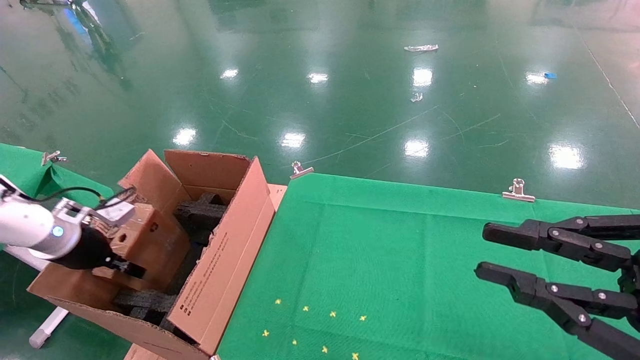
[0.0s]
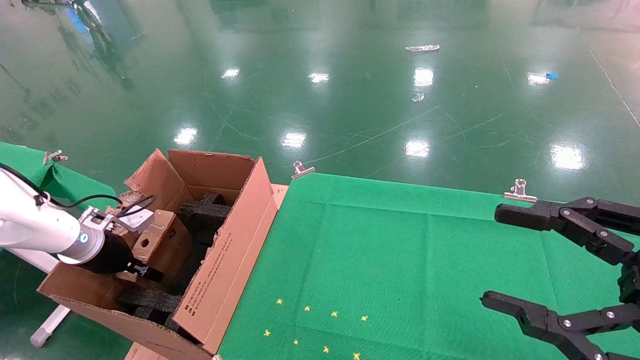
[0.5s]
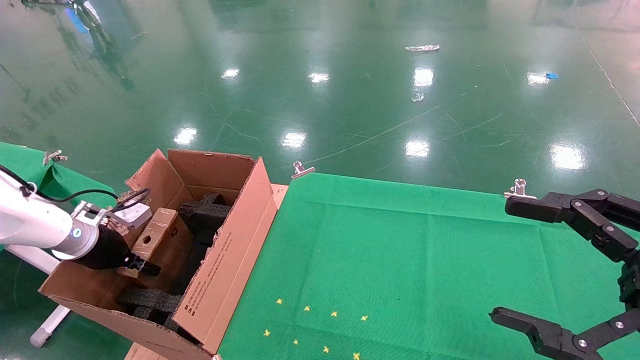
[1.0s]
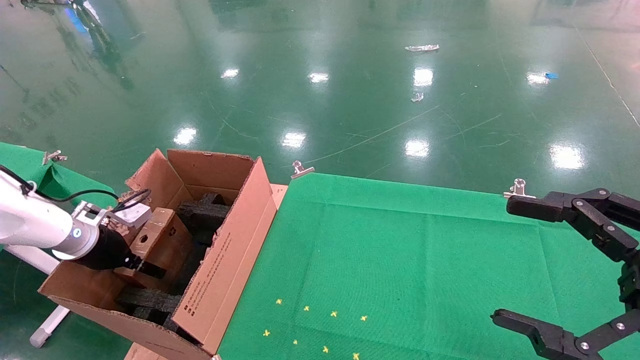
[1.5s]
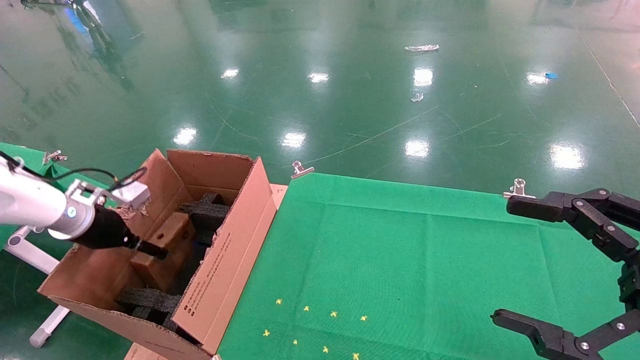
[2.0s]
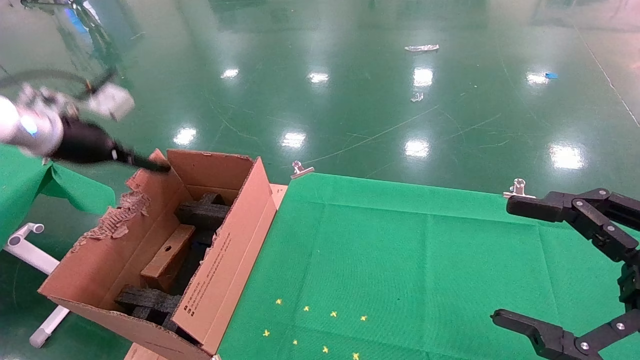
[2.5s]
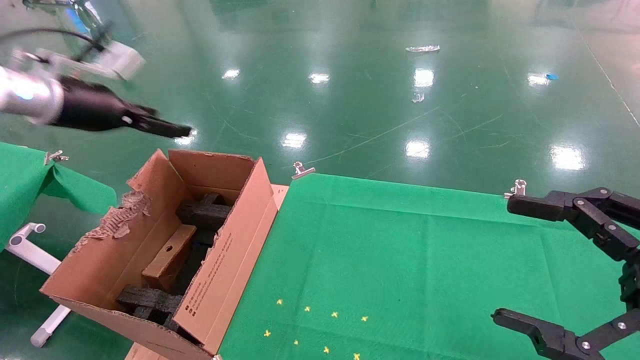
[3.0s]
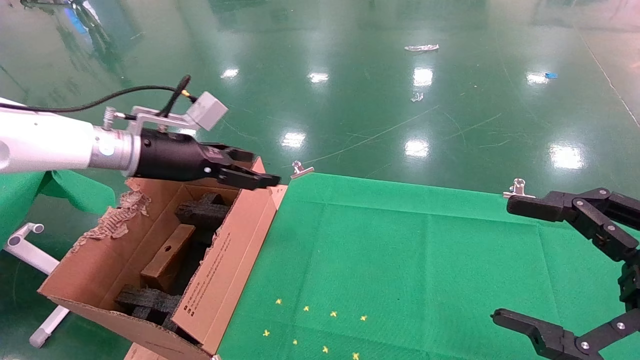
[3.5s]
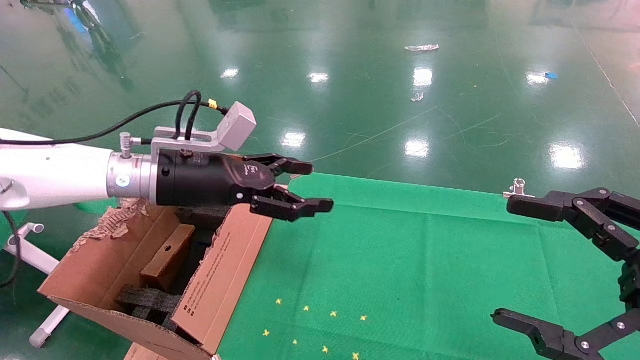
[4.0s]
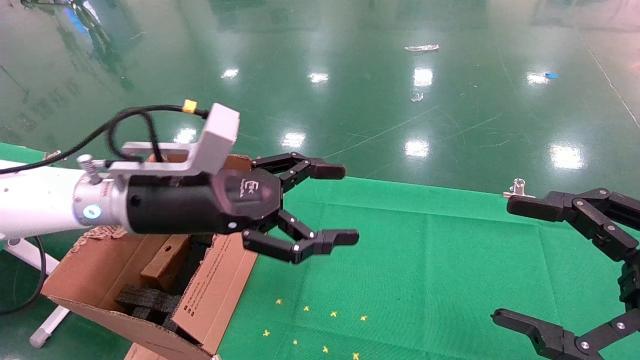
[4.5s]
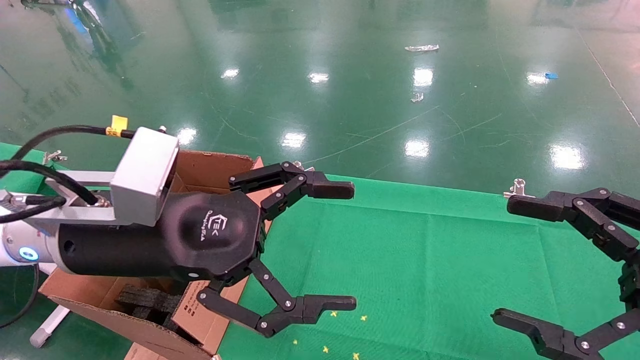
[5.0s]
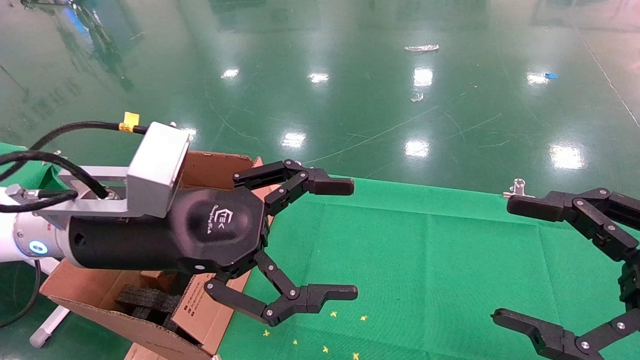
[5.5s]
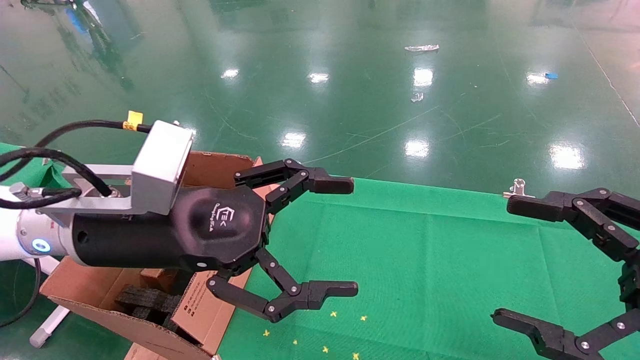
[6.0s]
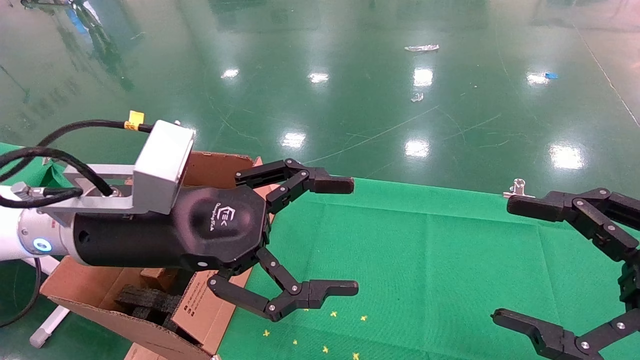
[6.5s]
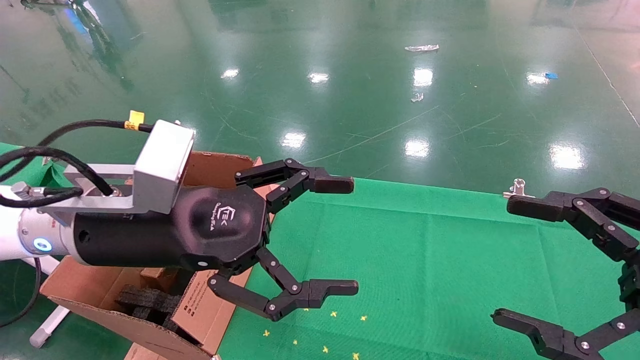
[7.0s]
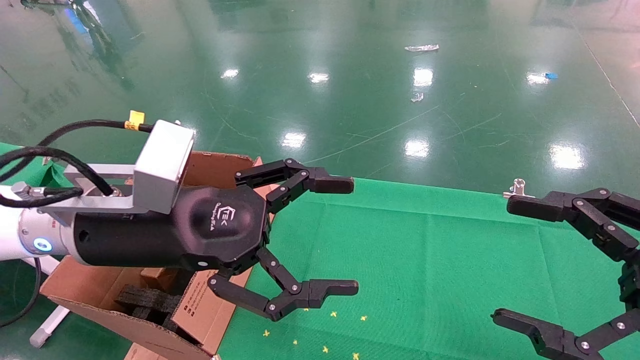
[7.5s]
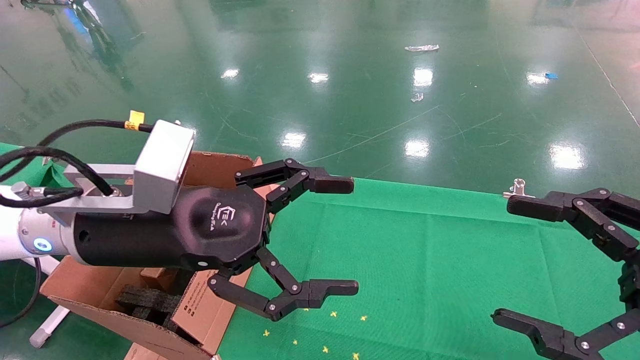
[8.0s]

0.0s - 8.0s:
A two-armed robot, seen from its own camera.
Task of the whole recording: using a robotic arm to pick up a cardboard box and palace it the carton.
Step, 0.0s - 2.5s: Place the mouse and the power cord paper box into the container.
0.0s - 2.0s: The left gripper opens up; the right gripper opens up.
2.0s - 4.0s: The left gripper heads to the right and upward, covering roughly 25 cm.
4.0s - 6.0s: The left gripper is displaced backward by approximately 10 cm.
6.0s - 8.0s: The two grippers keep their place.
